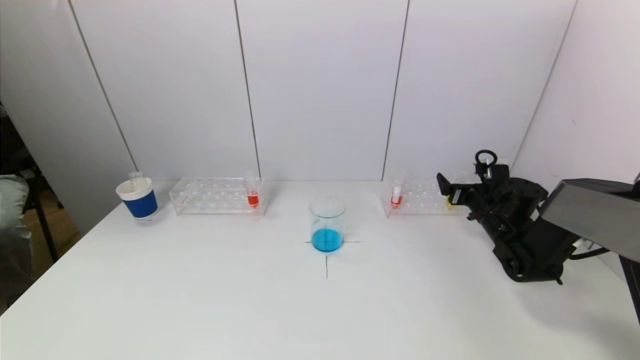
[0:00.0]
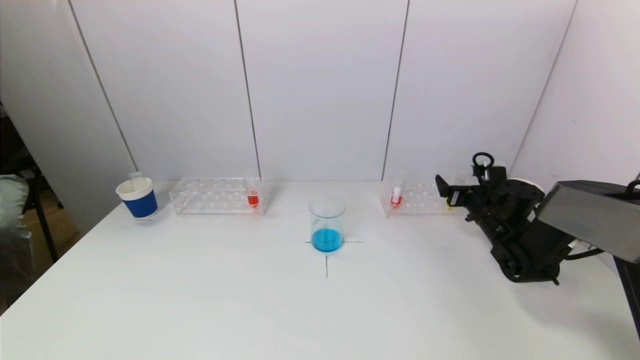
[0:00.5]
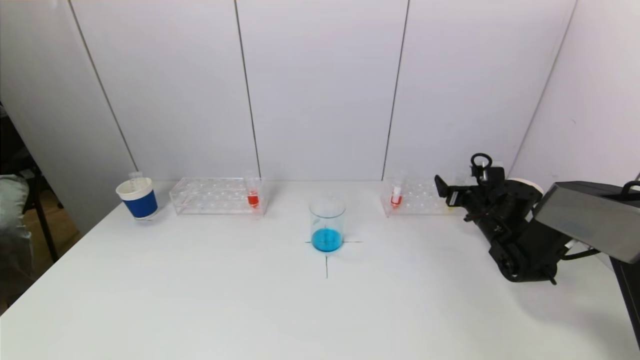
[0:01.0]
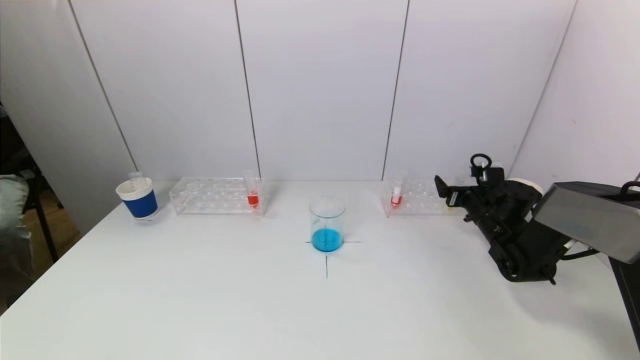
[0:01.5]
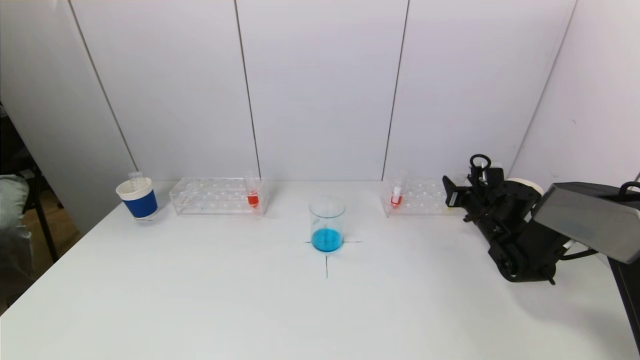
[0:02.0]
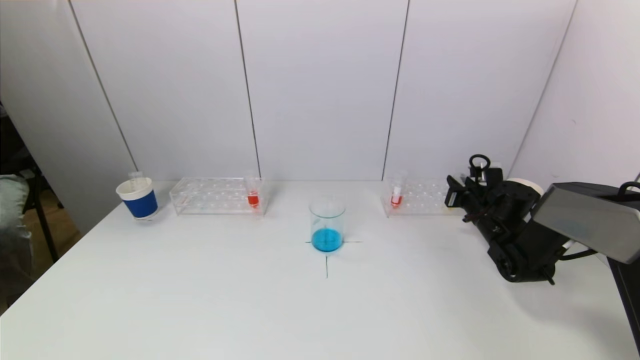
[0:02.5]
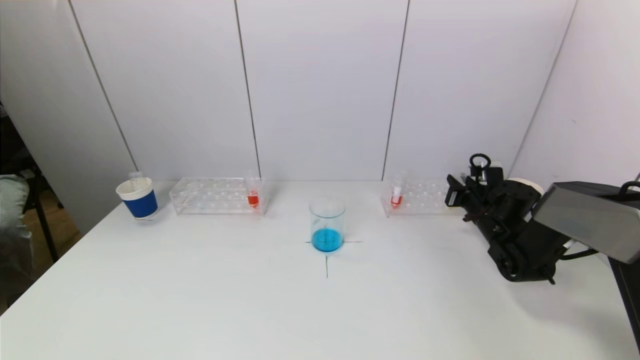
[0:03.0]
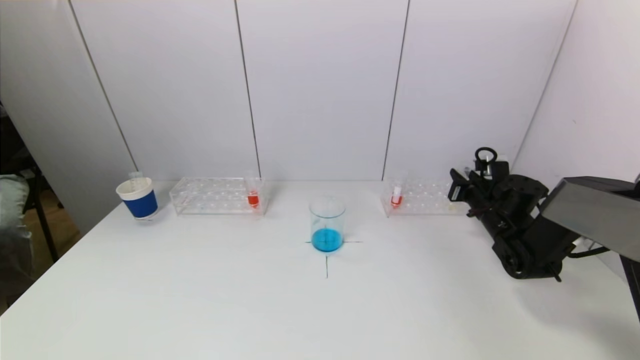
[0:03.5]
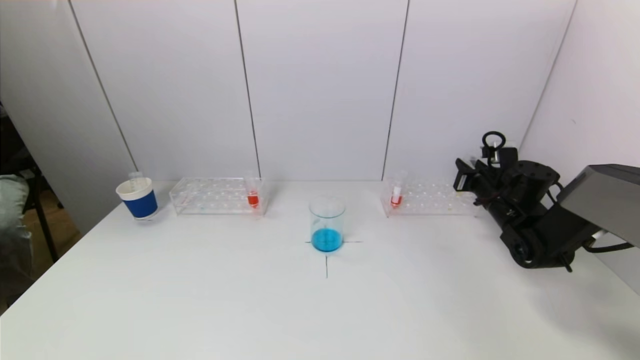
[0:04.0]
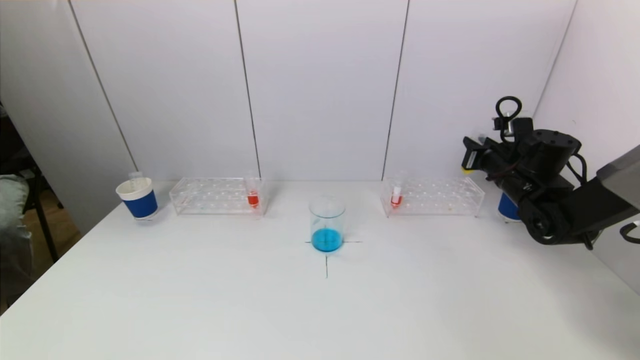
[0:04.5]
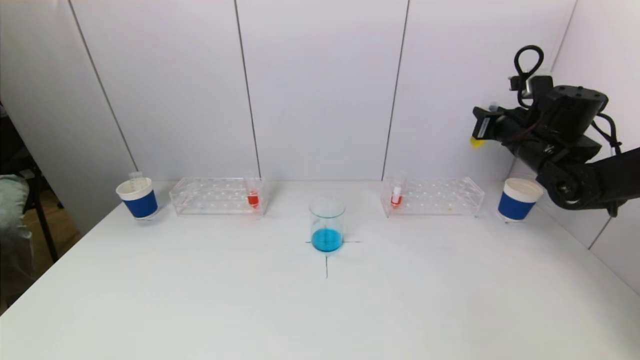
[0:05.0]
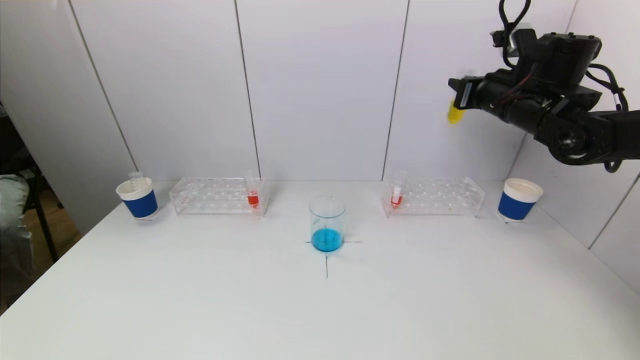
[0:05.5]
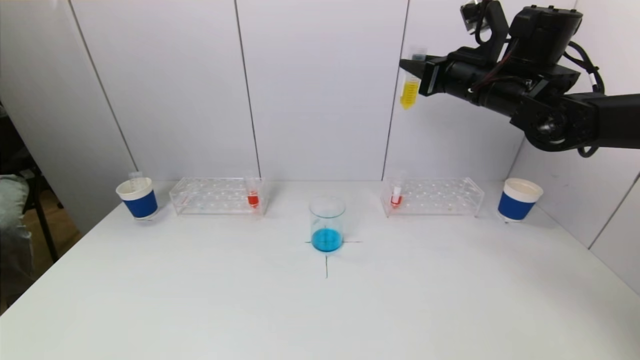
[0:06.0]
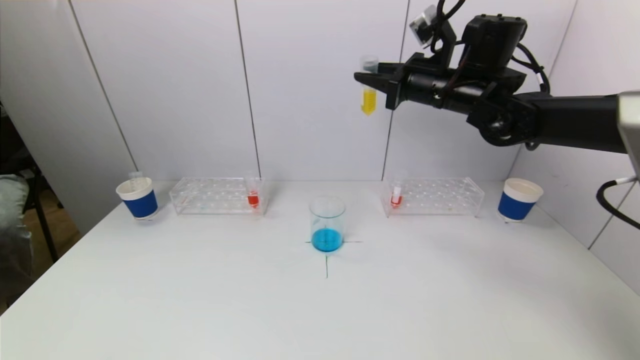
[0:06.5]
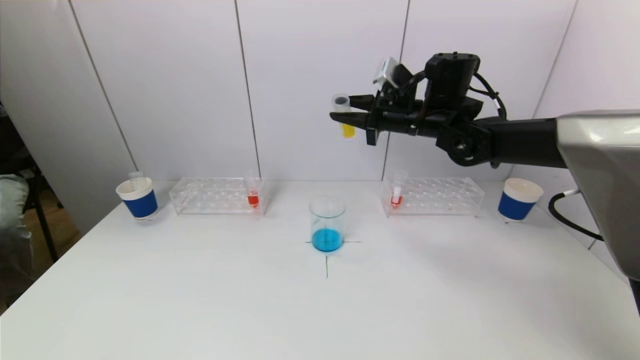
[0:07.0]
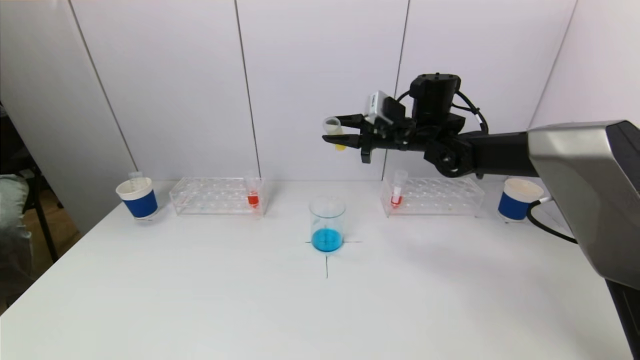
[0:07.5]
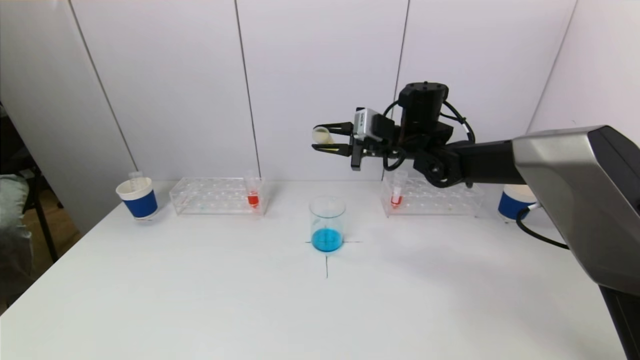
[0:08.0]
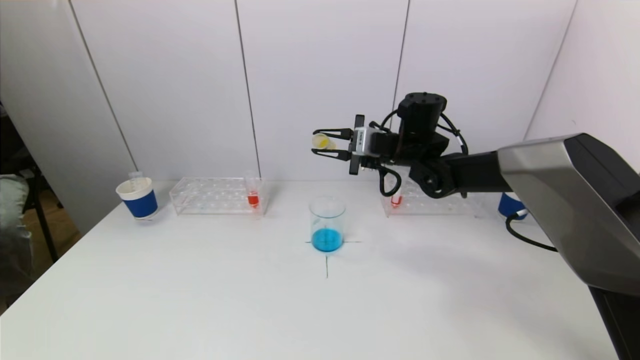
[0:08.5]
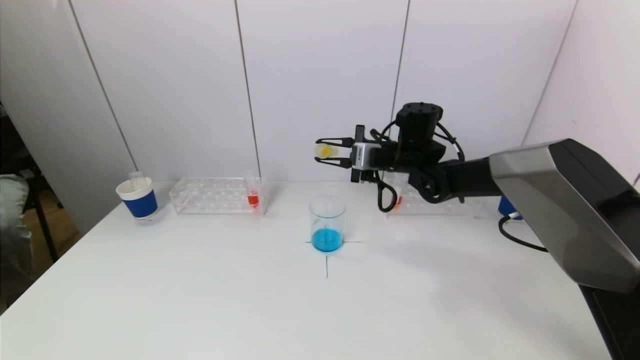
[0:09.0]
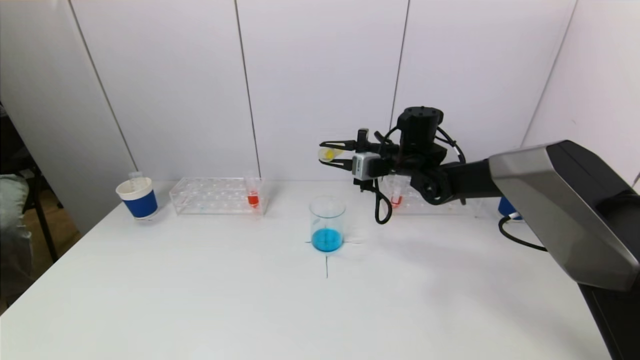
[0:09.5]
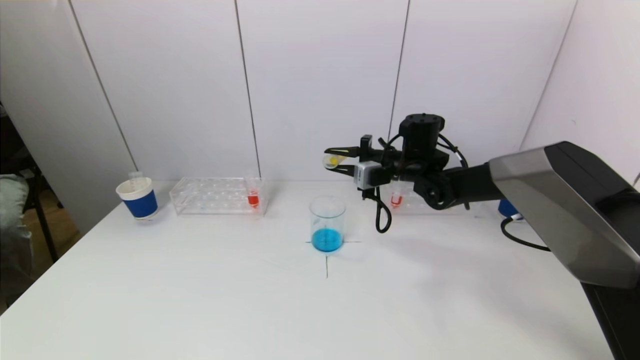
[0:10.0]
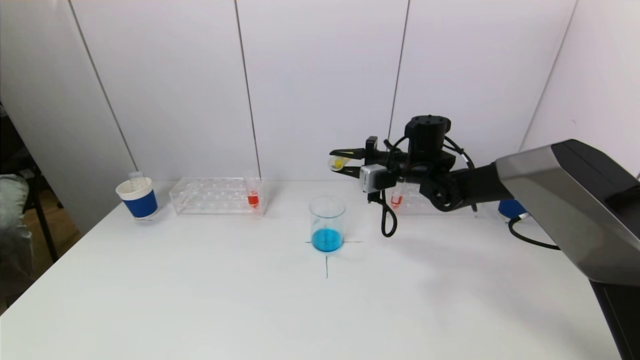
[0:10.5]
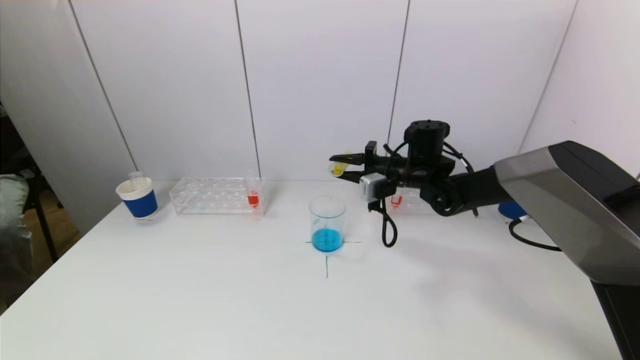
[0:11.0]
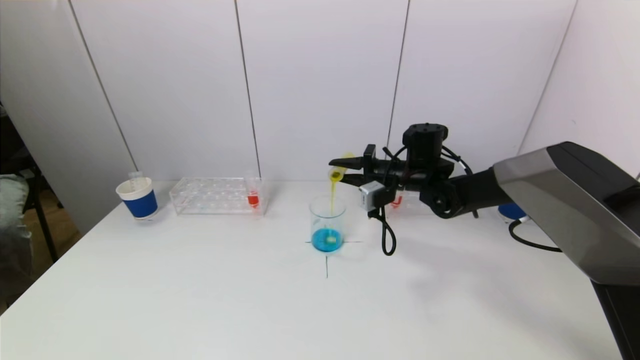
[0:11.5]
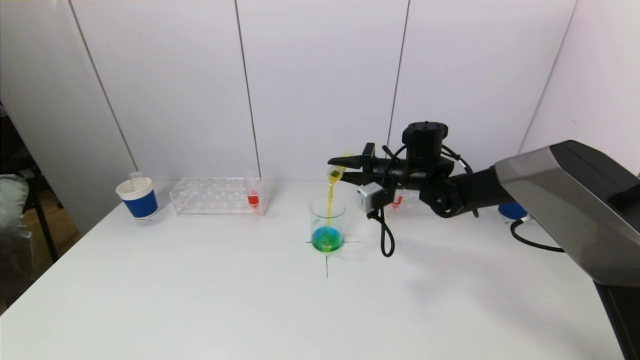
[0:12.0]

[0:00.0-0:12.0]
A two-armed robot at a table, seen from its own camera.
Task of the whole recording: pick up a test tube with pigment on left test tube rack and a test tube with pigment on right test tube rack by grippers and pour them into the beaker.
Step, 0:00.0 to 0:02.5: Grasp the yellow reagent with the right gripper.
0:00.0 to 0:02.0: The right gripper closes.
0:02.0 to 0:04.0: The right gripper closes.
0:04.0 to 0:06.0: The right gripper heads upward and to the left, covering some 25 cm.
0:06.0 to 0:08.0: The right gripper is displaced to the left and downward by about 15 cm.
0:08.0 to 0:10.0: The right gripper goes roughly 5 cm downward.
0:10.0 to 0:12.0: The grippers stay close to where they were, moving slightly.

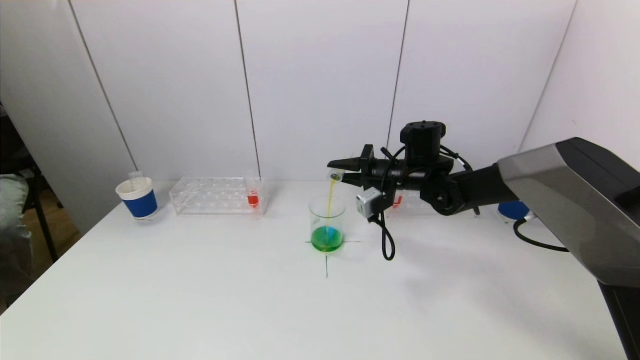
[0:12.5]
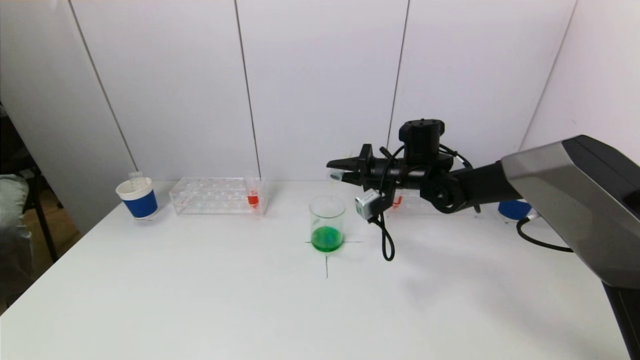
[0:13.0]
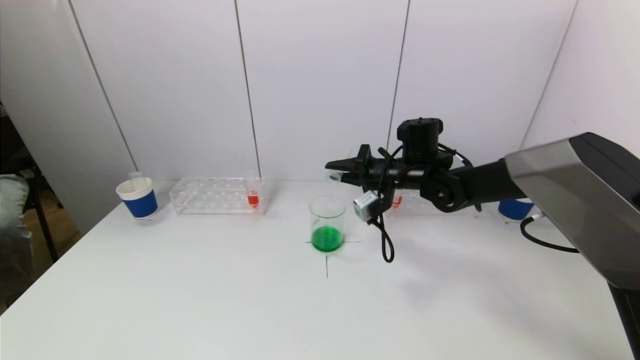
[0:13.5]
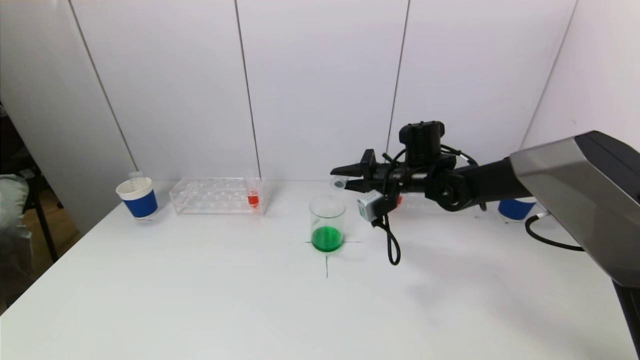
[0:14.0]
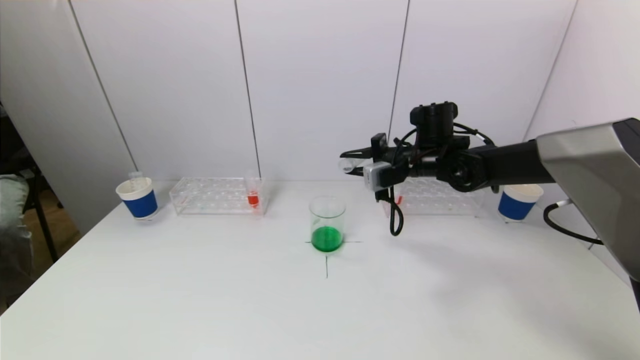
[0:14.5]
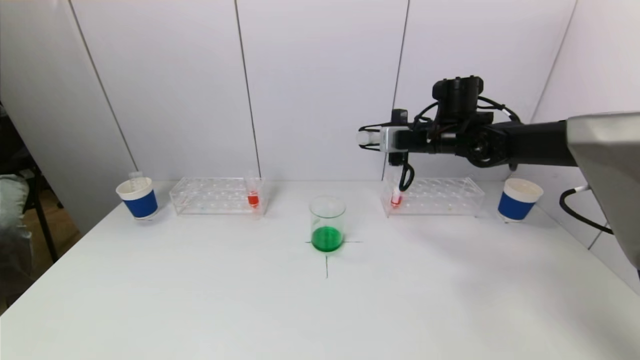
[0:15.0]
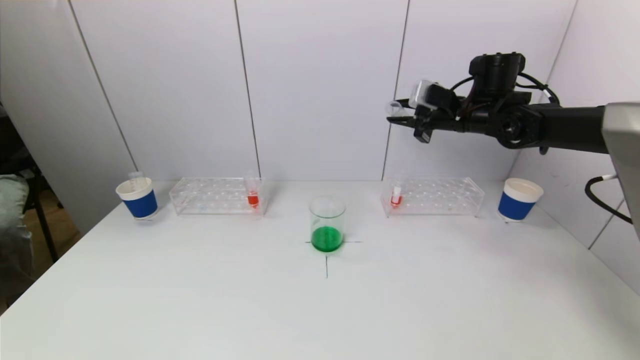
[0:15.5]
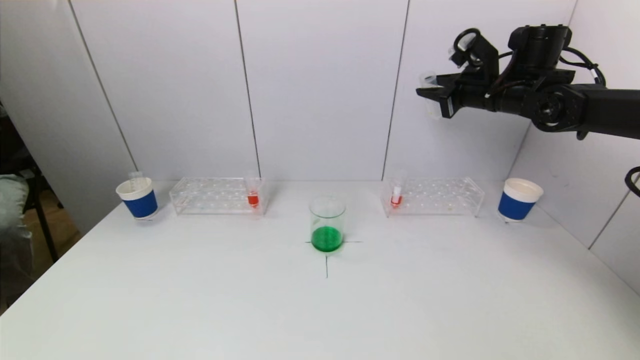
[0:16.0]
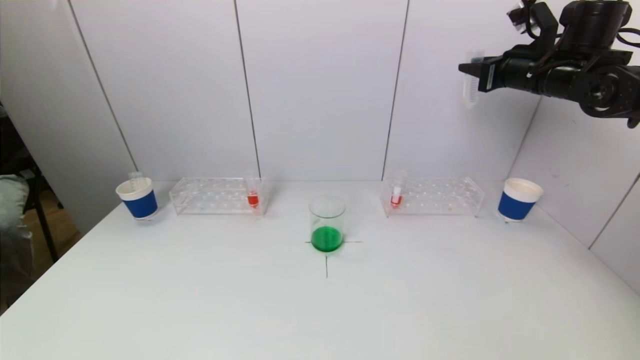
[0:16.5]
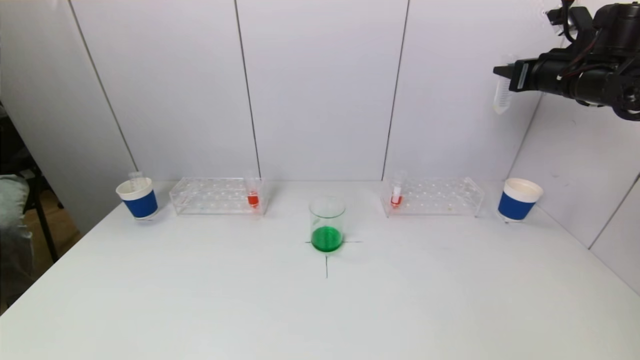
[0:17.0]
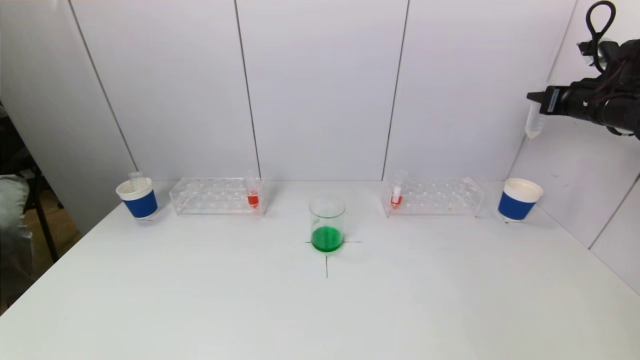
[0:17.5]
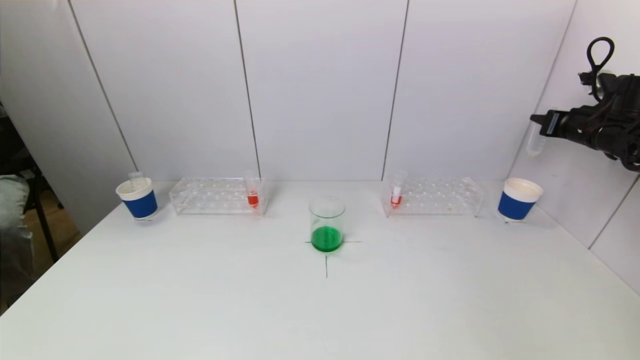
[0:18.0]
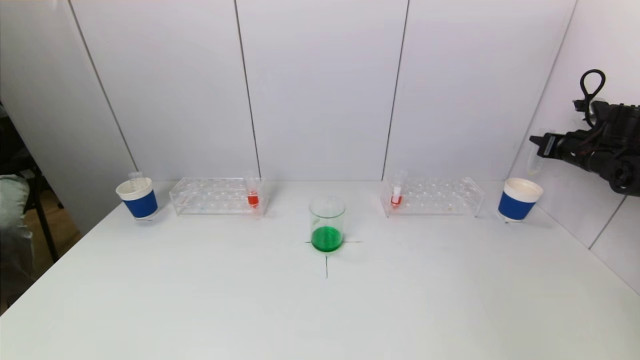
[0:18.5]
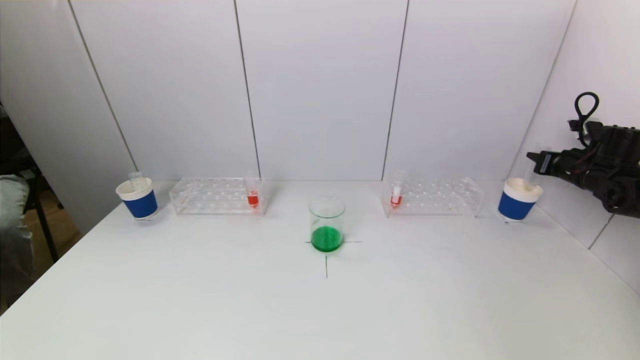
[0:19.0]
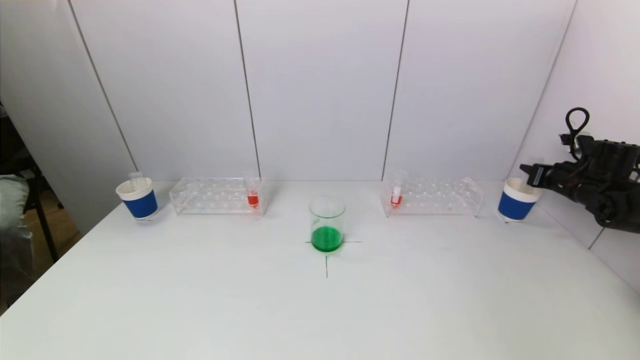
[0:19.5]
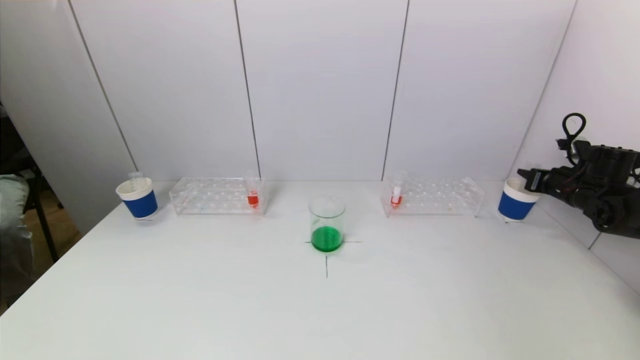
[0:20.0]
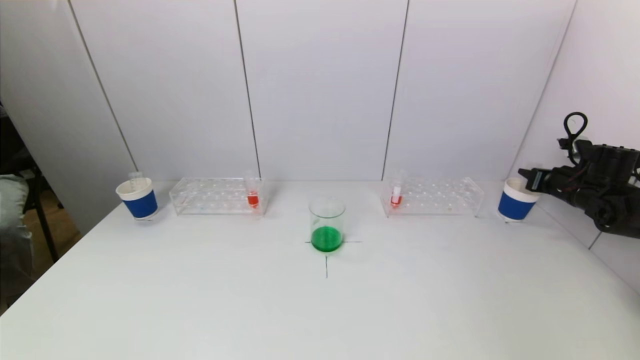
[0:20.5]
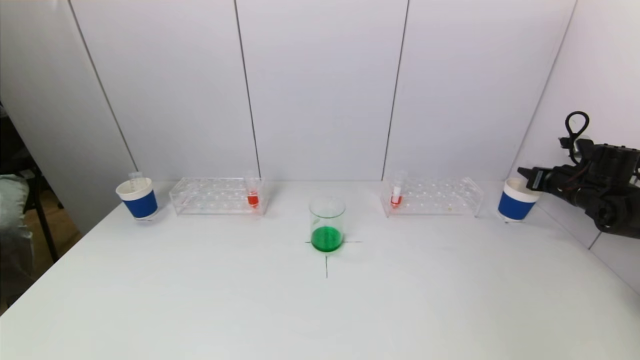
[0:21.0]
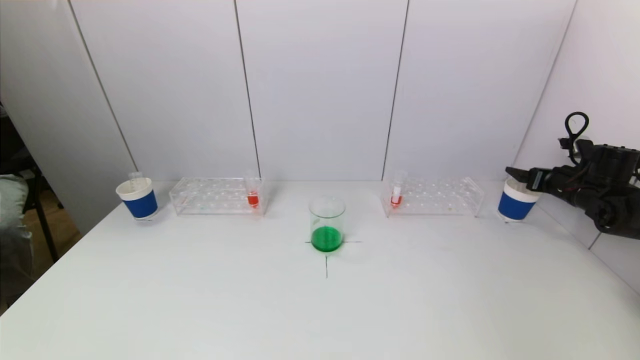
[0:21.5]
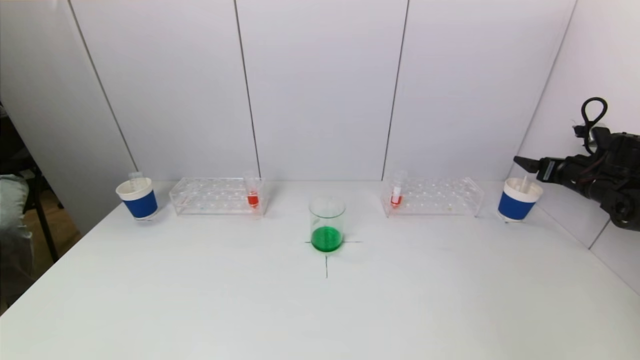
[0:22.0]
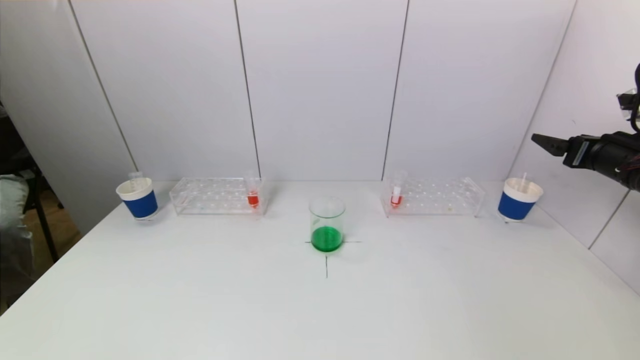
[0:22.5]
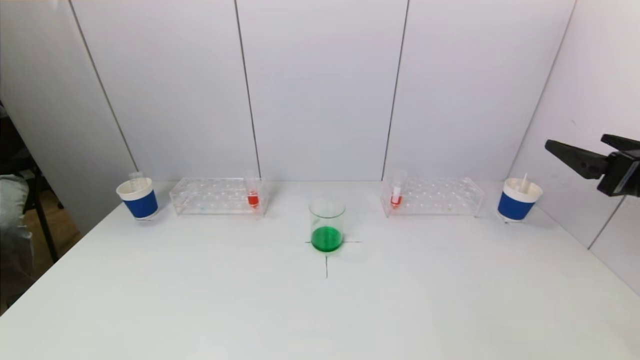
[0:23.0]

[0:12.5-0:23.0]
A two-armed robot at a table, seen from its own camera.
Task of the whole recording: pick up a test tube with pigment on left test tube rack and a test tube with pigment on right test tube rack by grippers and pour them into the beaker.
Step, 0:14.5 to 0:22.0: Place the test tube into the paper cup with the right gripper.
0:14.5 to 0:16.5: The right gripper shifts some 20 cm to the right and upward.
0:16.5 to 0:19.0: The right gripper travels downward and to the right by approximately 25 cm.
0:19.0 to 0:21.0: The grippers stay close to where they were, moving slightly.
0:21.0 to 0:23.0: The right gripper shifts about 30 cm backward, upward and to the left, and opens its fingers.
